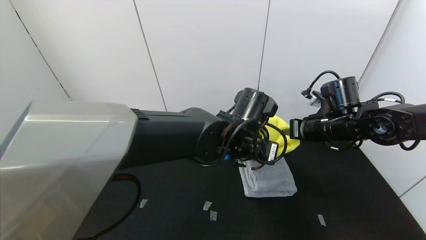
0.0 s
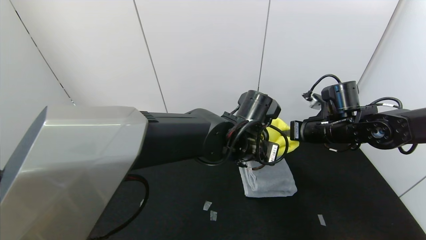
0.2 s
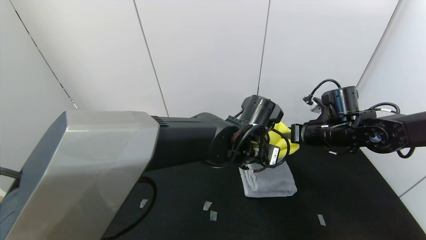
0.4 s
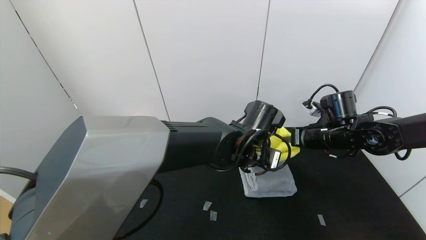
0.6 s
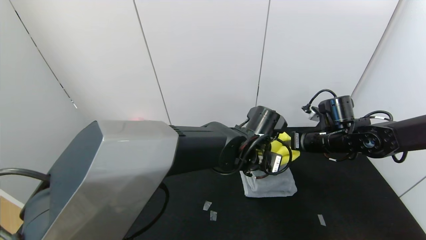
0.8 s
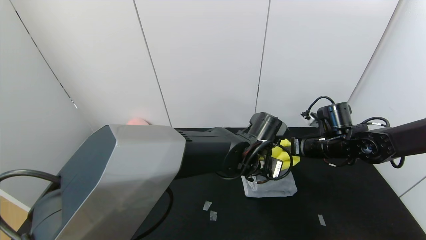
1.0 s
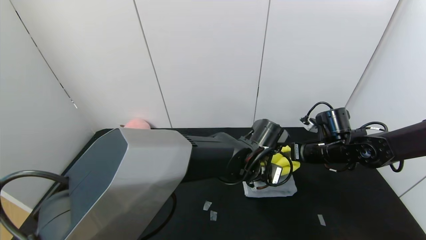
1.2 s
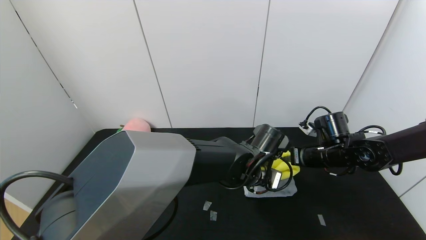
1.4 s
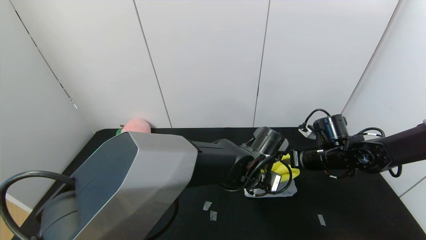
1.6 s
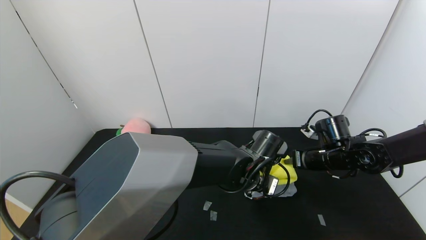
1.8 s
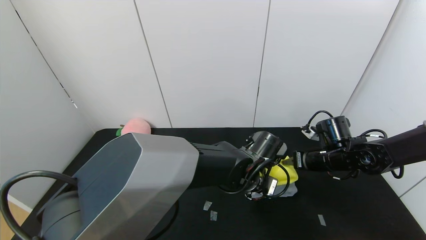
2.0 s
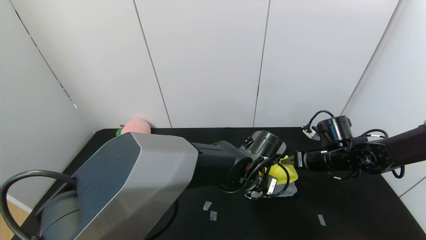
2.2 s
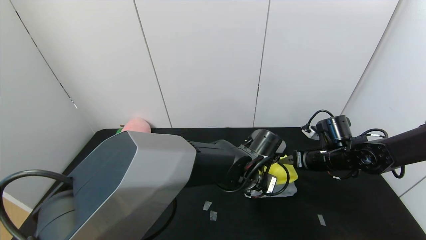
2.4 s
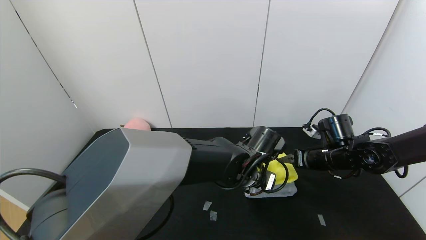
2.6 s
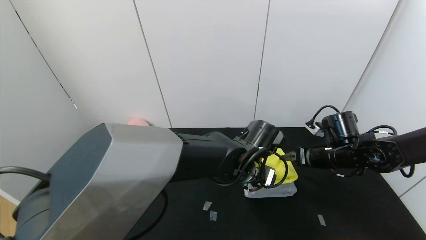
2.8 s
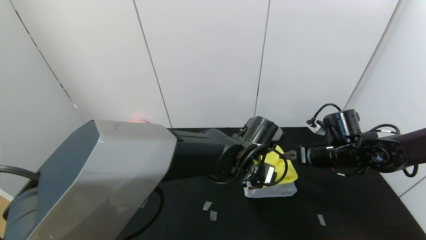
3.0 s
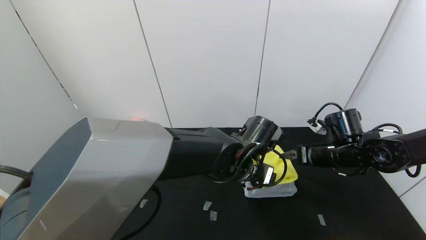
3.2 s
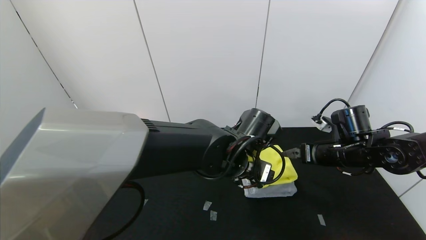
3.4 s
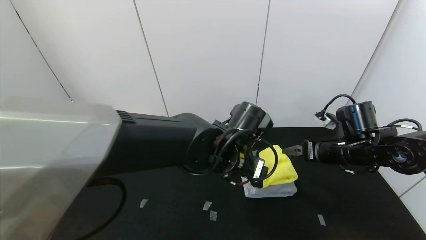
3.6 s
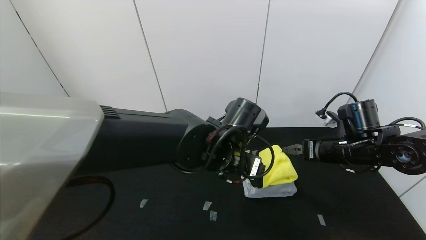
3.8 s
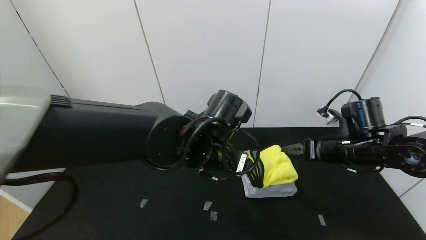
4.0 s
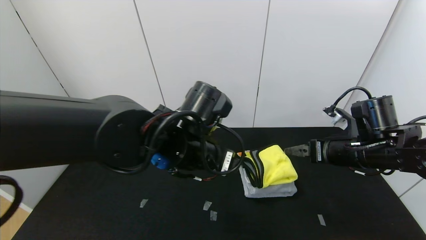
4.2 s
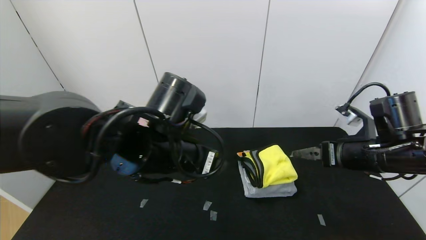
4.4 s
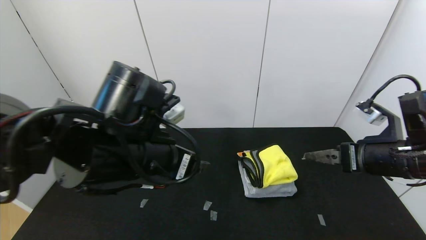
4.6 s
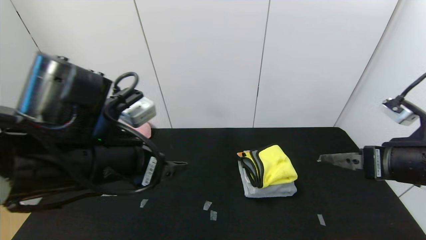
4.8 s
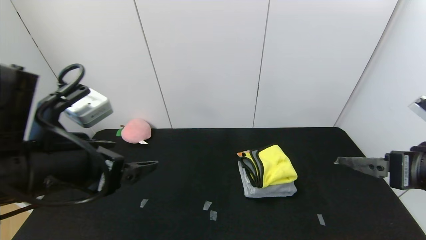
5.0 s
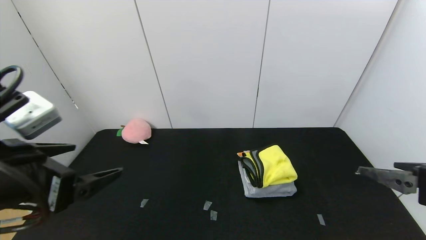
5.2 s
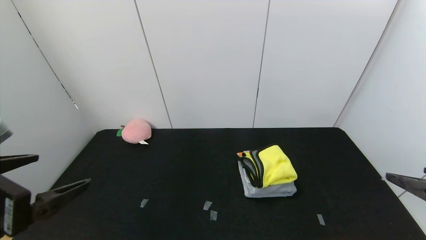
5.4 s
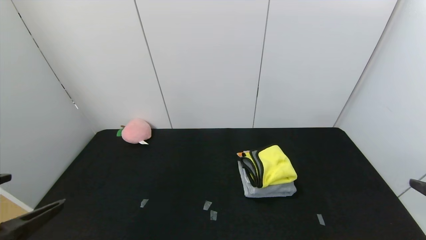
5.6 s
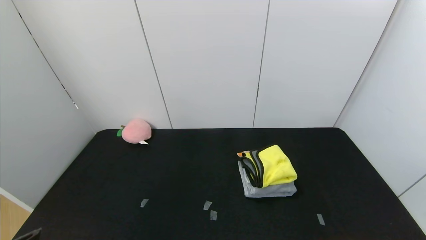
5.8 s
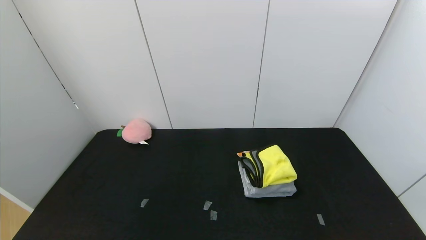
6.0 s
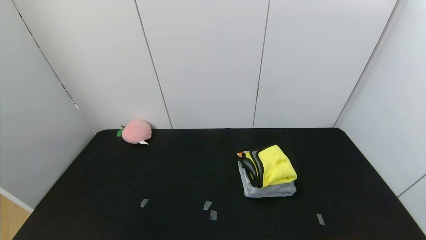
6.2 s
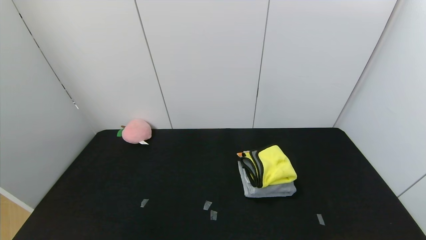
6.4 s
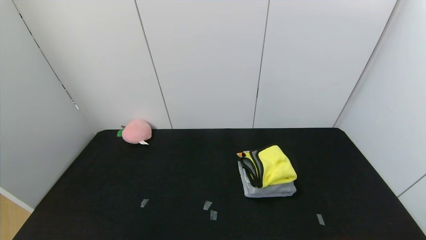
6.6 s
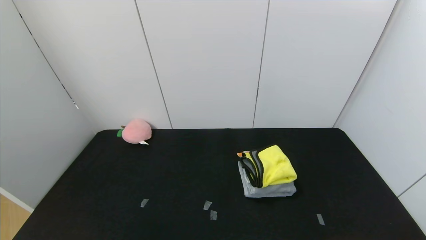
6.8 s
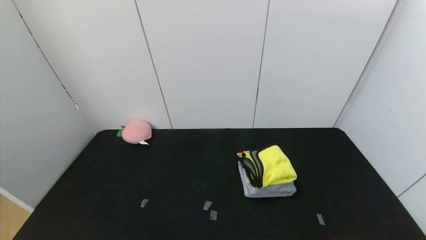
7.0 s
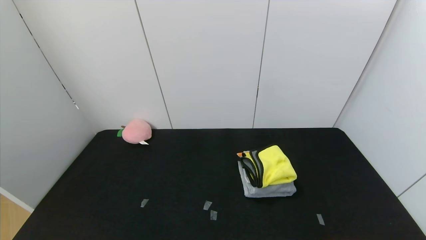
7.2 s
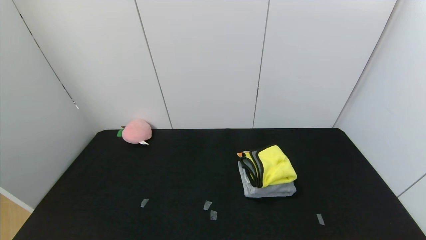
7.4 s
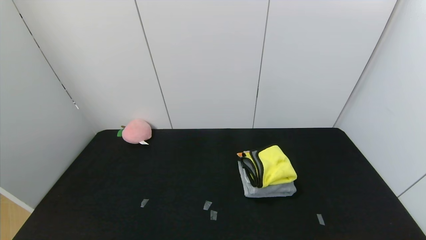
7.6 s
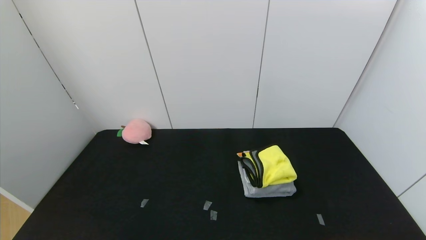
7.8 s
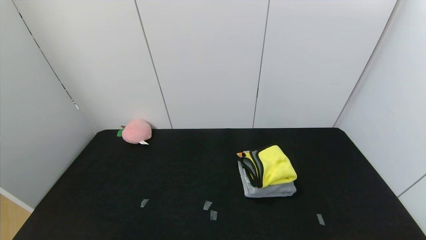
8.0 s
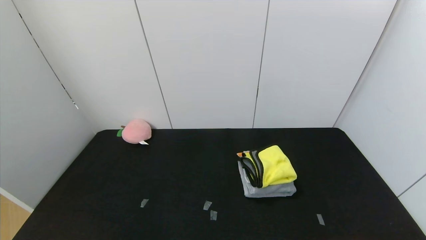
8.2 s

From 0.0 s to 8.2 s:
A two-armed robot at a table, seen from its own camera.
Task of the whole recording: Use the gripper to fold the yellow towel and grey towel in half twice,then put the yellow towel on the grey towel.
Step, from 0.0 s to 2.8 s: Place the yellow towel on the gray towel with the left gripper.
From 0.0 s to 1.6 s: Both grippers travel together downward, roughly 10 cm.
From 1.6 s to 3.2 s: The right gripper opens; the left gripper opens its fingers.
From 3.2 s to 5.0 s: The left gripper goes roughly 30 cm to the left, backward and upward, while the right gripper is displaced backward and upward by about 20 cm.
From 5.0 s to 6.6 s: The two grippers go roughly 20 cm backward.

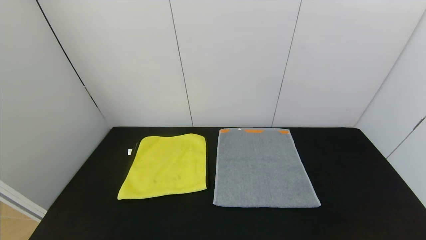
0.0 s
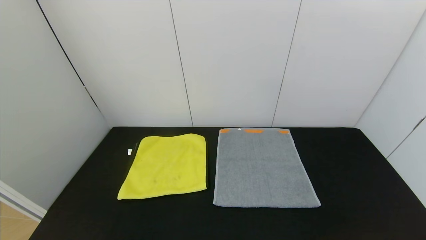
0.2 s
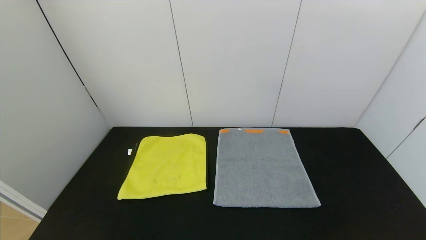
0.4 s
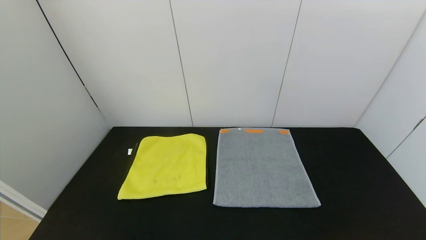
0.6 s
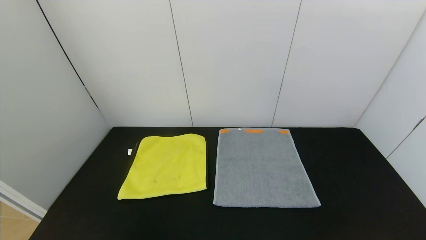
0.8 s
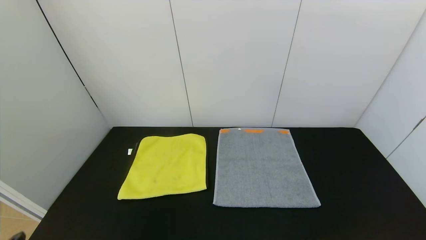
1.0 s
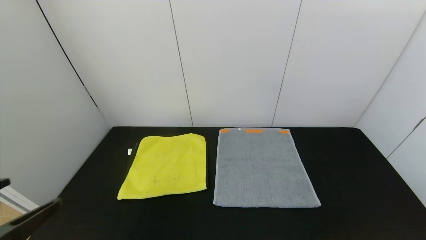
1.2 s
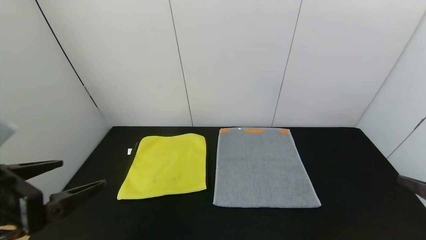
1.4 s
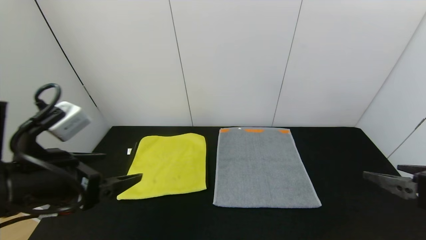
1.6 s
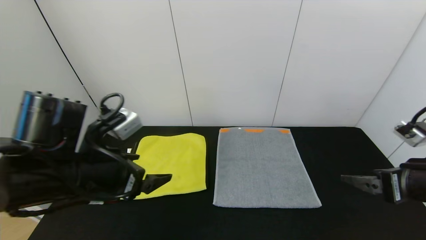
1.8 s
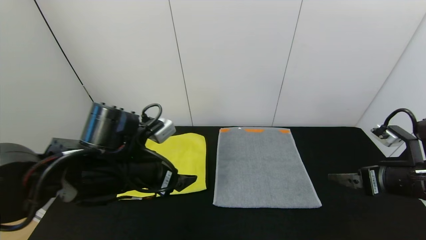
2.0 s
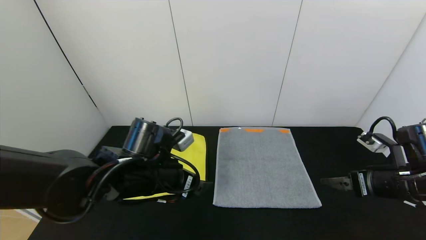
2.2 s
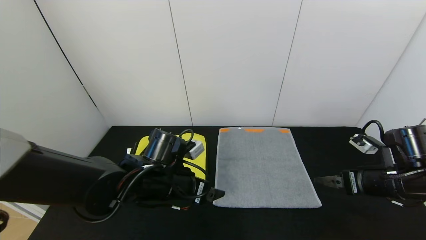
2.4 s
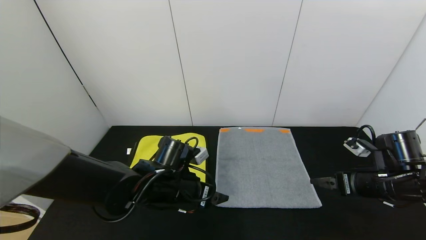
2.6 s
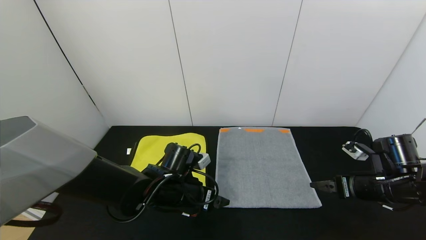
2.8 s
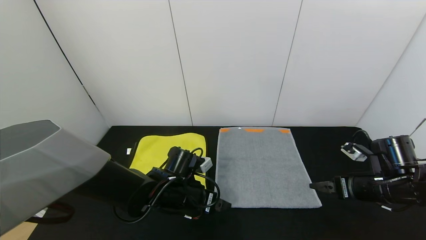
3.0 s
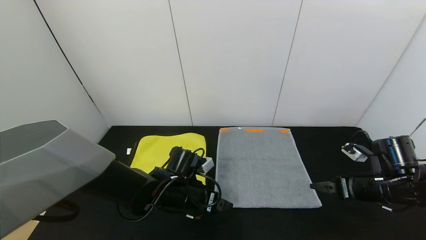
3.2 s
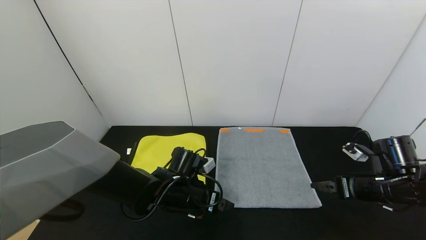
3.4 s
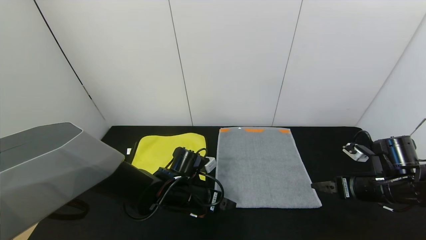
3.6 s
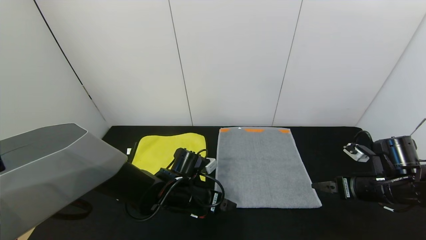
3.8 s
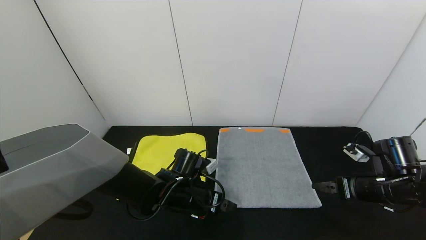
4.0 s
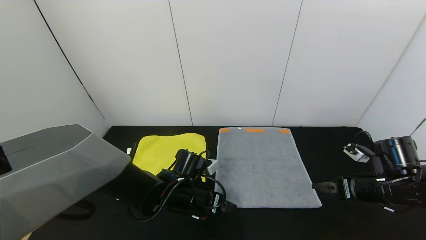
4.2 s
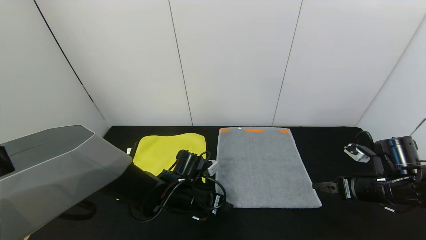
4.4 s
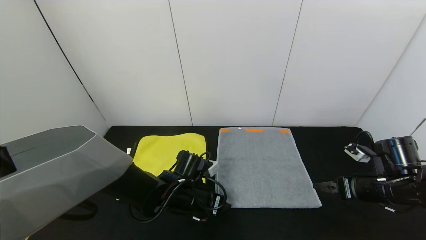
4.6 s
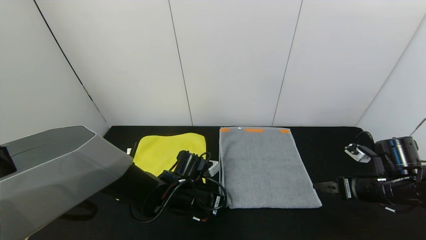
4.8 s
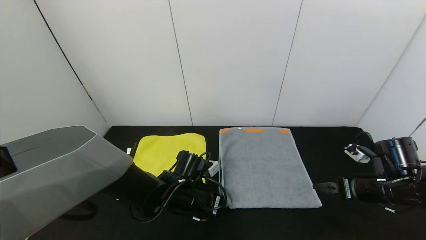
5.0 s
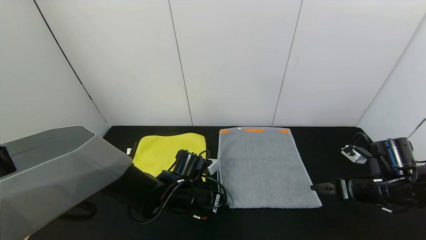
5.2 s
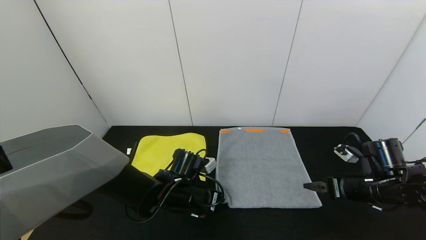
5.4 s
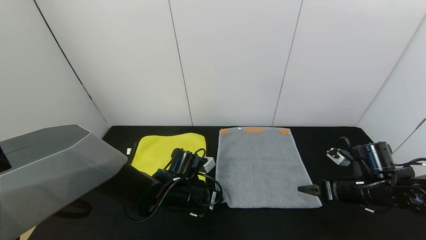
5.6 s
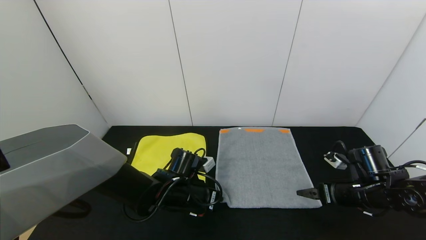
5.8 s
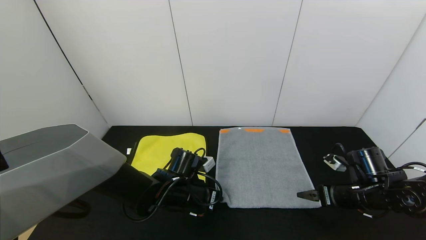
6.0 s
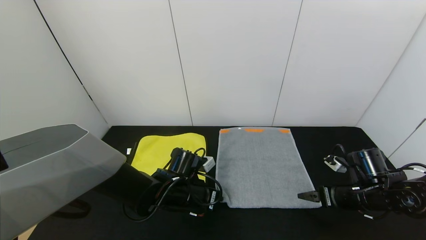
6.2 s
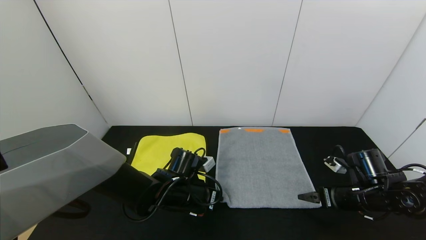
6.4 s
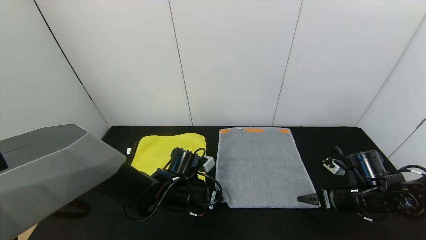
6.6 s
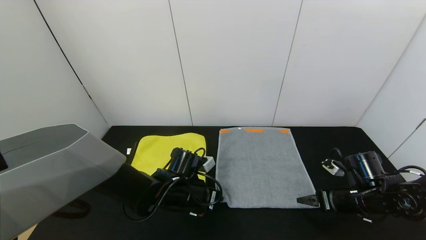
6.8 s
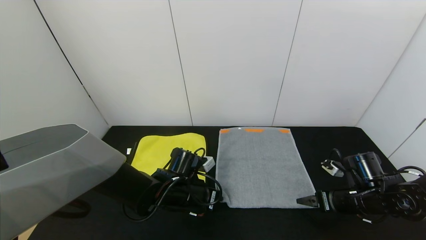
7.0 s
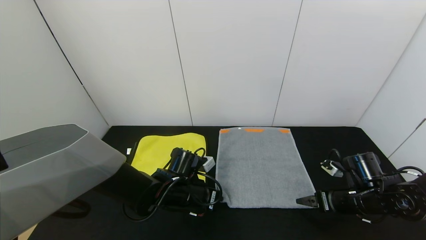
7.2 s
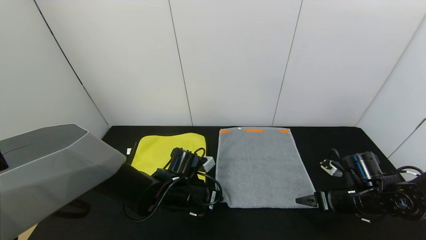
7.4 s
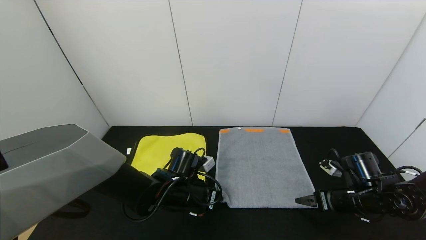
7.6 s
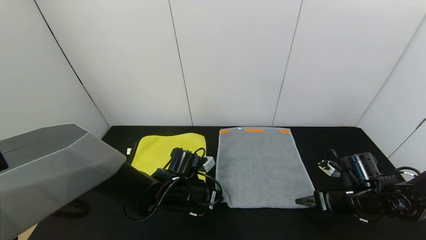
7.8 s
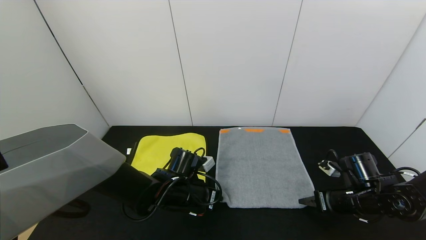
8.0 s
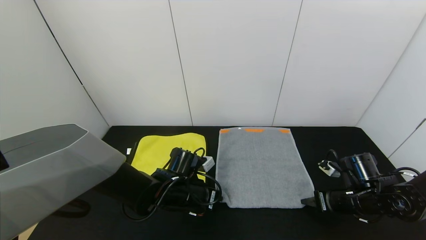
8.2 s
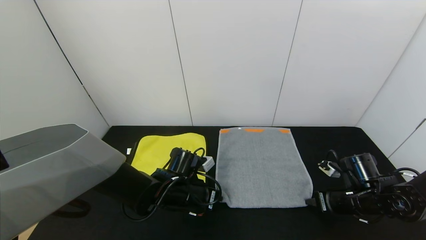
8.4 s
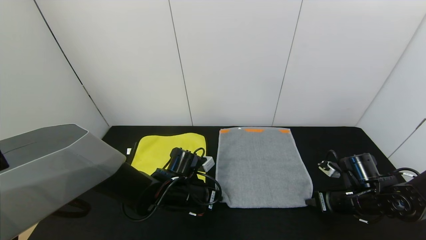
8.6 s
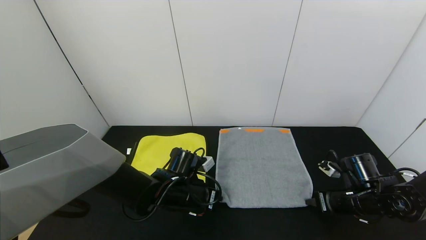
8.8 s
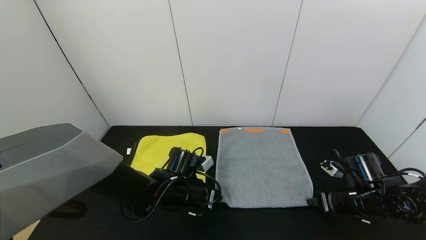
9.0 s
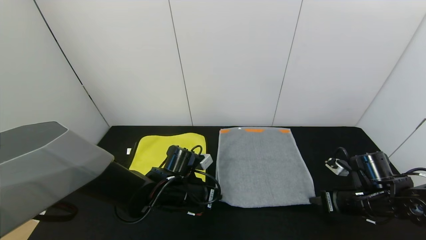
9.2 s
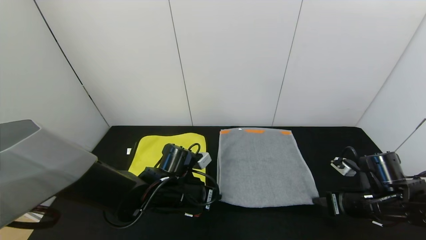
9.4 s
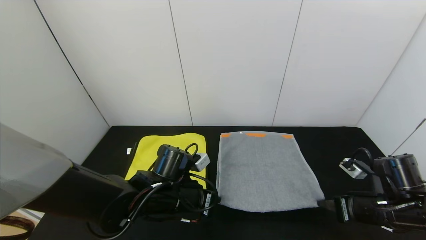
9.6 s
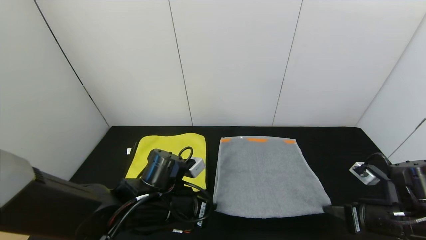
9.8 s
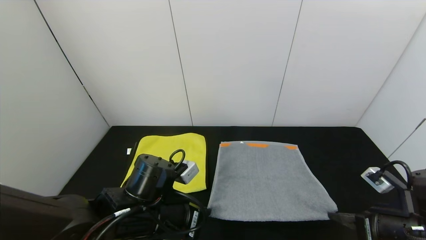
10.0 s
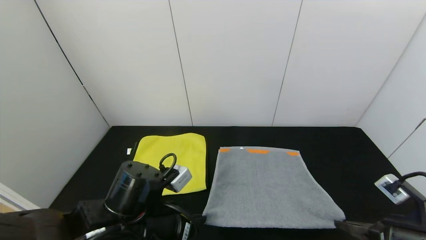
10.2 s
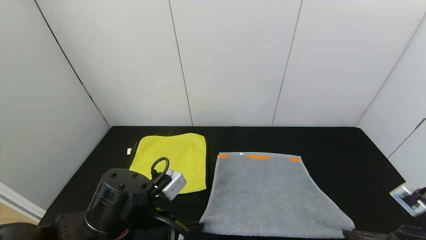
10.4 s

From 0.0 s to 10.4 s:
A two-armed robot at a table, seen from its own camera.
Task of the whole recording: Use the gripper to fold the yellow towel and grey towel in half twice,then put the yellow towel on the grey towel.
From 0.0 s to 1.4 s: The left gripper heads upward and forward, covering roughly 20 cm.
From 1.4 s to 3.0 s: The right gripper shifts approximately 20 cm forward and downward; the left gripper travels downward, forward and to the right by about 30 cm.
From 3.0 s to 4.4 s: The left gripper closes.
From 4.4 s to 6.0 s: The left gripper closes.
From 6.0 s to 7.4 s: There are only small adjustments of the grippers.
From 7.4 s to 9.0 s: The right gripper closes up.
From 9.0 s to 10.4 s: Both grippers travel together backward and upward, roughly 15 cm.
